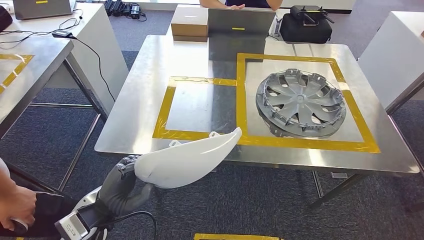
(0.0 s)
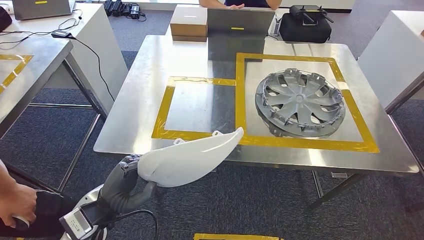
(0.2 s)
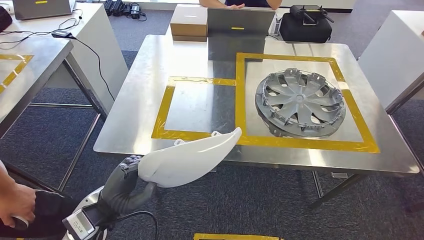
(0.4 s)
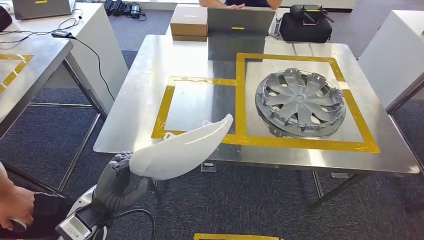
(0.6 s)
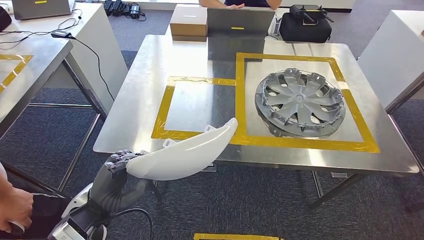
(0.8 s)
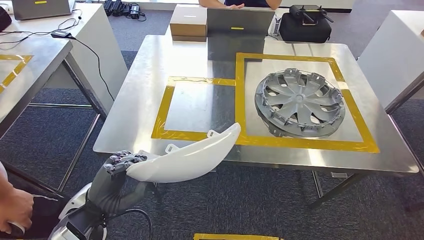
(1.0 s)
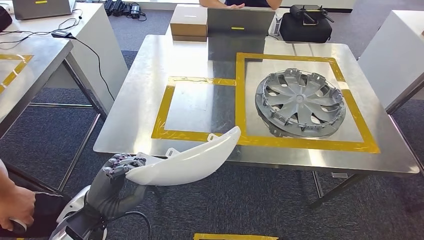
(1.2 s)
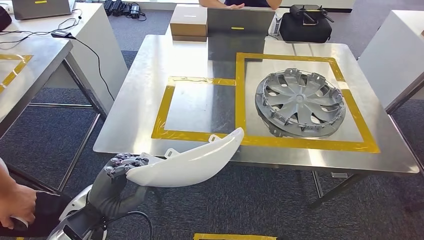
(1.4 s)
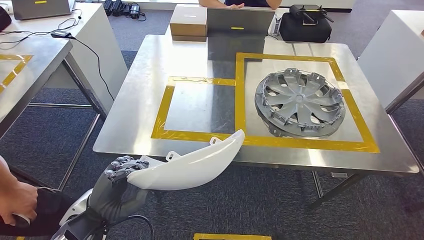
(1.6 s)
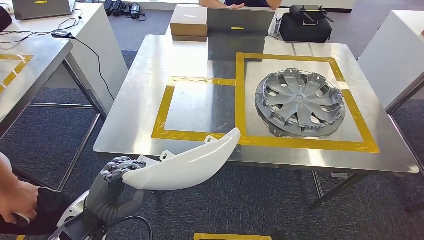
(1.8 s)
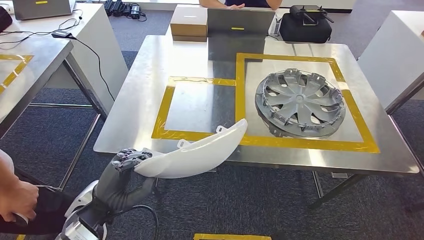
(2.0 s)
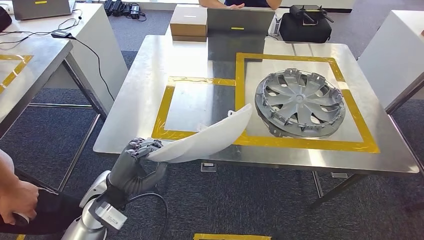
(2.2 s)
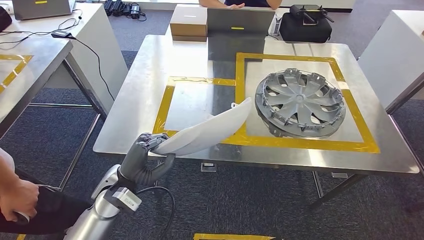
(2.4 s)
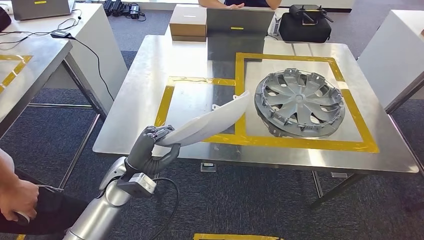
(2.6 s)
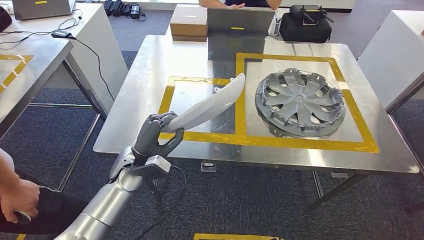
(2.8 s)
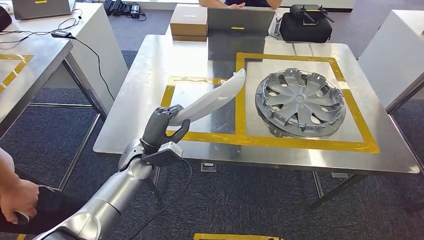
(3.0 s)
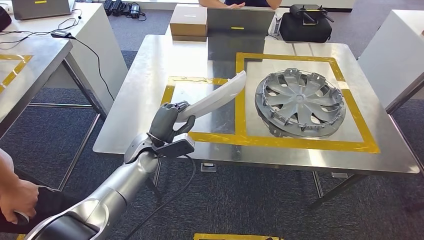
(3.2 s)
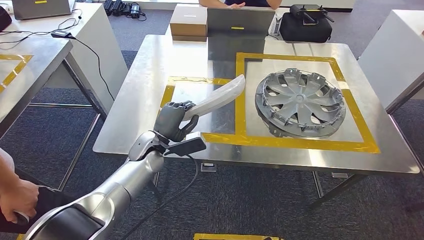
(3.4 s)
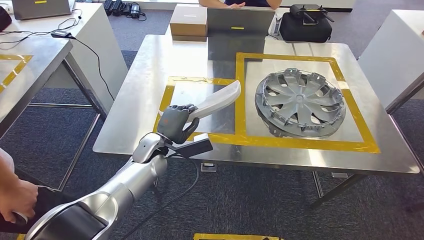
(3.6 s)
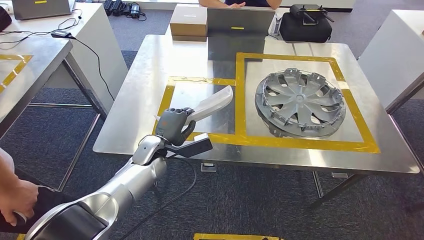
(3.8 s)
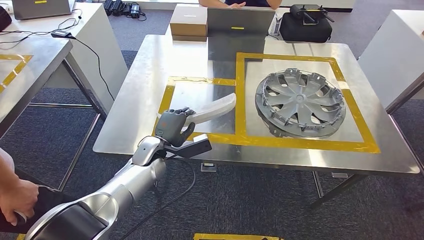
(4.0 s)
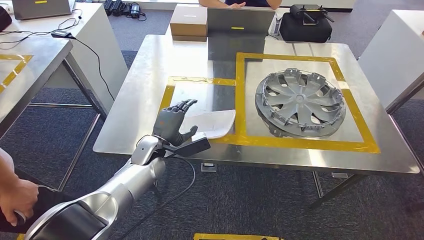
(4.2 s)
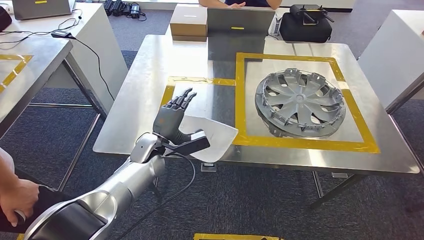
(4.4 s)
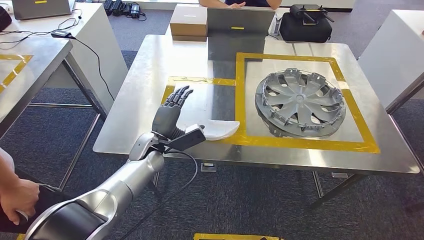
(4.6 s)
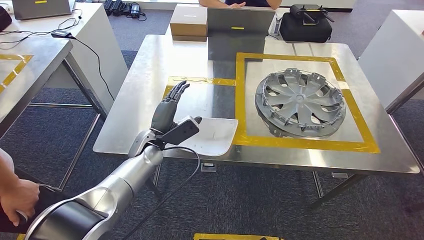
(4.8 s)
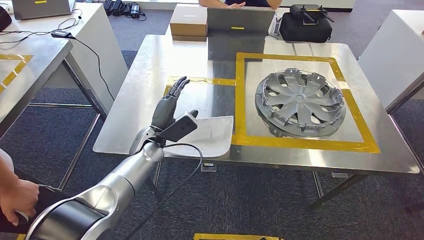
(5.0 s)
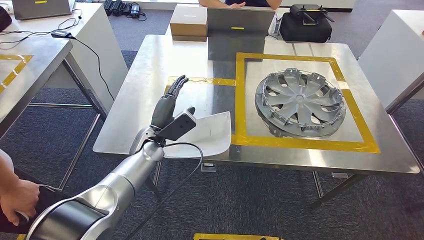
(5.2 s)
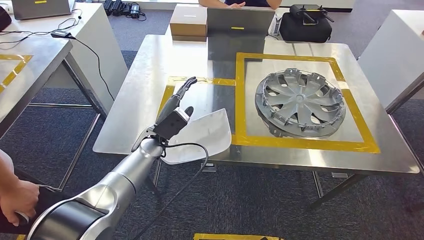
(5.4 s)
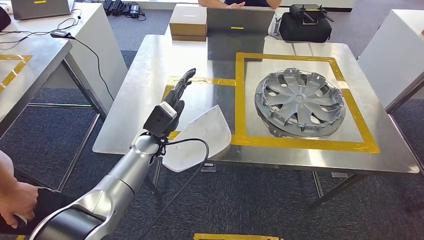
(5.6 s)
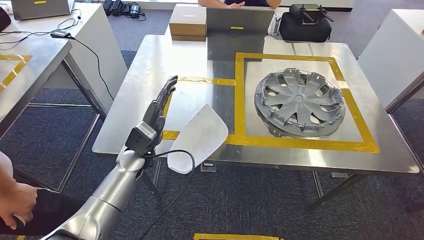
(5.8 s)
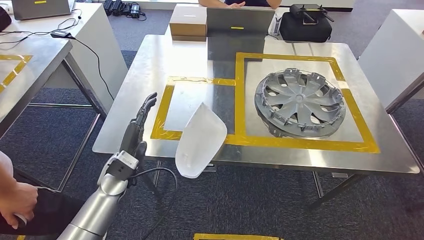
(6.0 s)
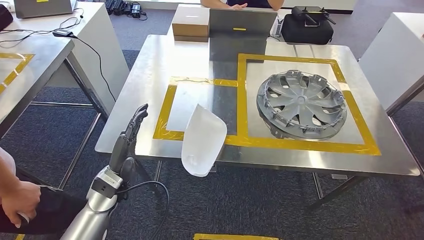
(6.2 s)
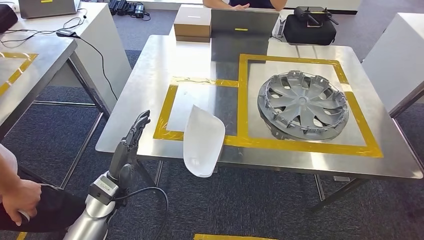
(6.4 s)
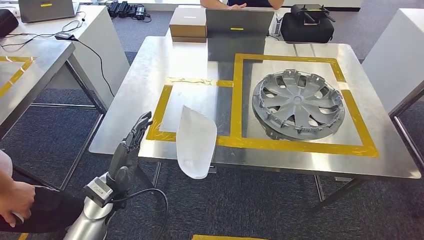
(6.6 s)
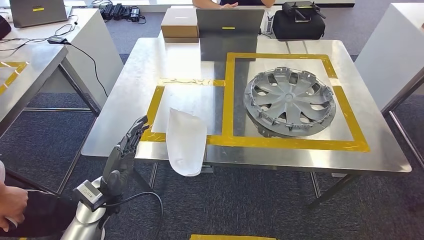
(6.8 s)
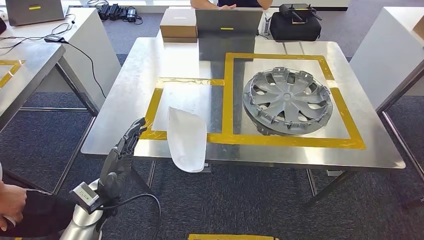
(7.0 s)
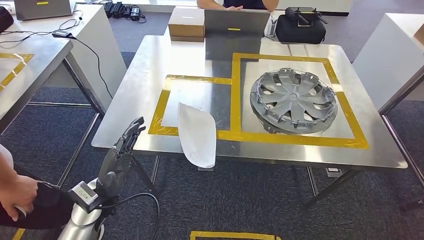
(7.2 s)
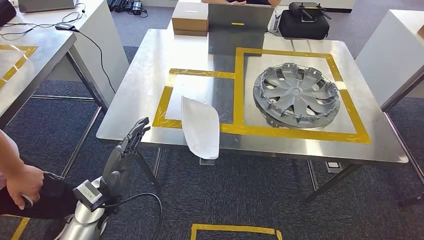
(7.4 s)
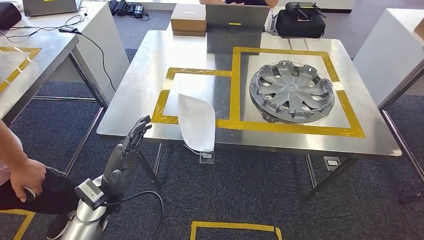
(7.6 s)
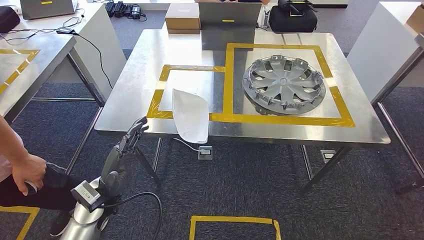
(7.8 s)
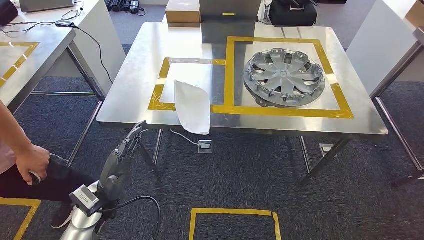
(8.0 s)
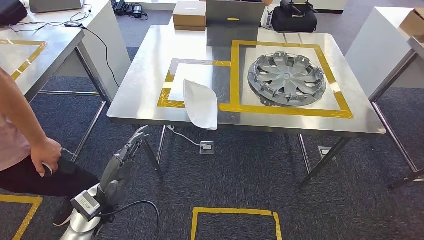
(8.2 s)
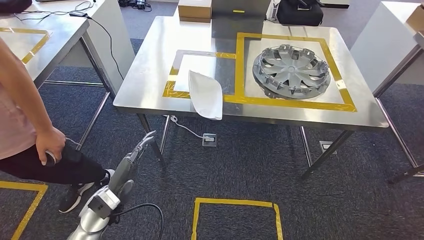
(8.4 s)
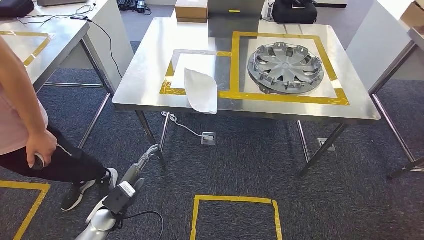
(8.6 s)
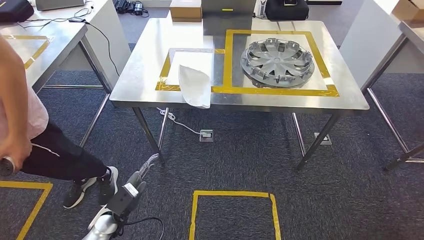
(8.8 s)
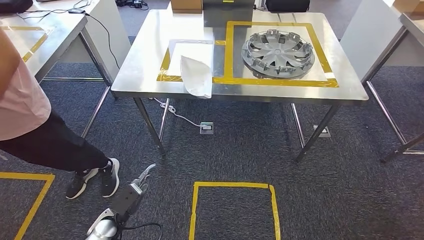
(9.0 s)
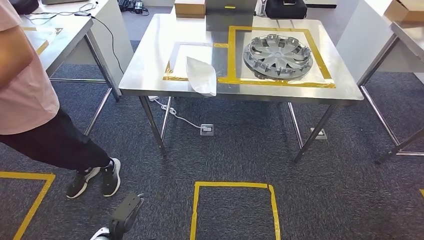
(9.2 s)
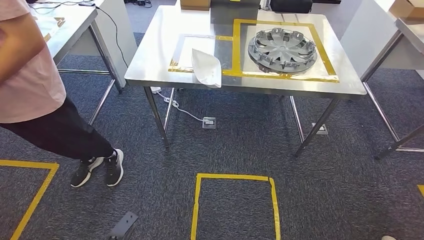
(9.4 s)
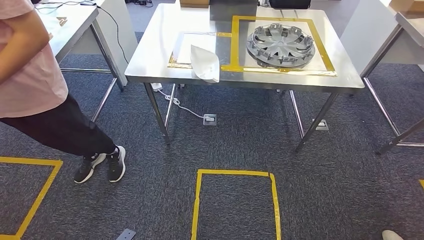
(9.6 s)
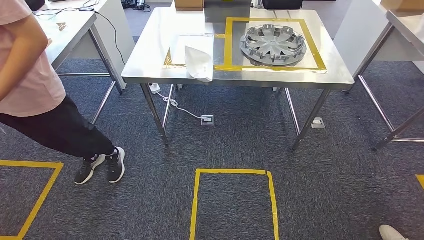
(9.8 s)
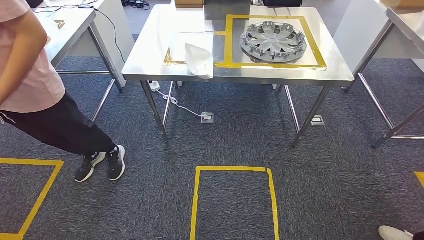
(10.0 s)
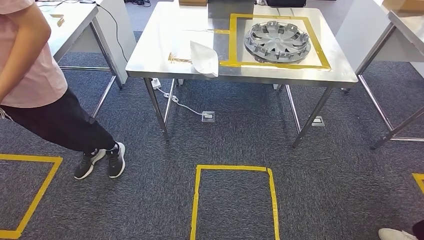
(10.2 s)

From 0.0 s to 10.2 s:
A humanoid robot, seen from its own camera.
Step, from 0.0 s to 6.2 s: Insert the small component into the corresponding slot on the workbench.
Step, from 6.4 s to 10.2 s: Return to the initial position at the workbench.
From 0.0 s to 1.4 s: The hands move only a little.
From 1.4 s to 3.0 s: The left hand travels forward and to the right by some 15 cm.

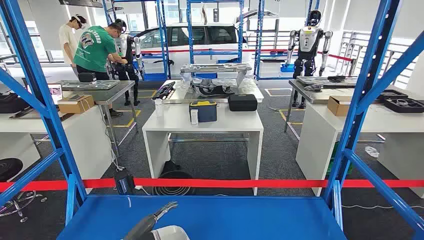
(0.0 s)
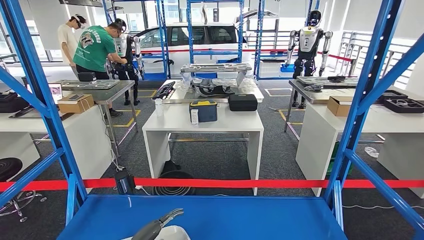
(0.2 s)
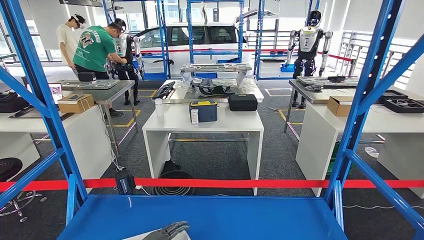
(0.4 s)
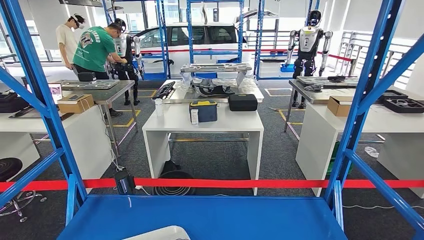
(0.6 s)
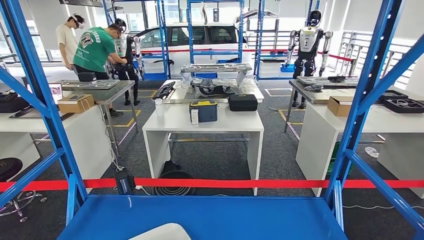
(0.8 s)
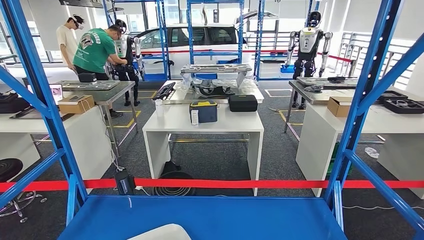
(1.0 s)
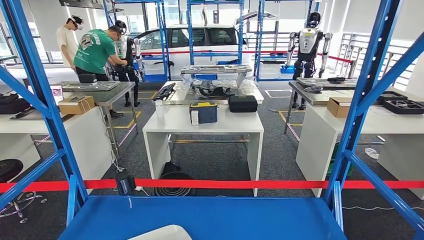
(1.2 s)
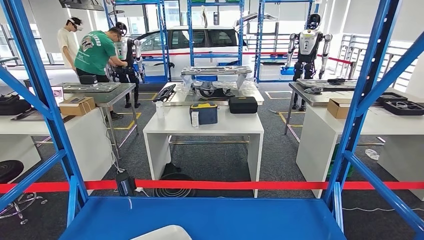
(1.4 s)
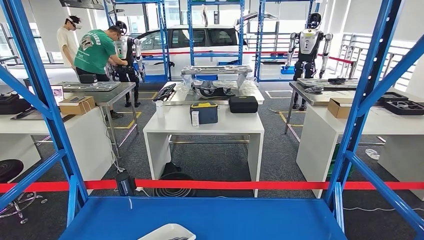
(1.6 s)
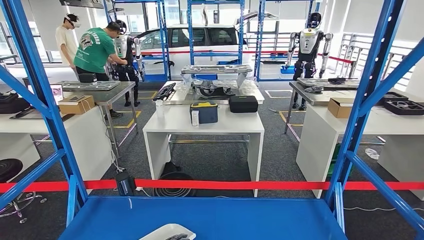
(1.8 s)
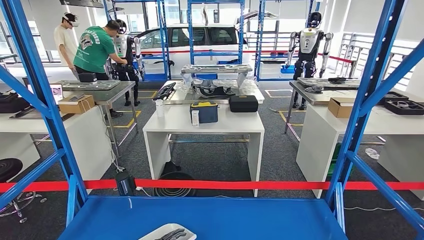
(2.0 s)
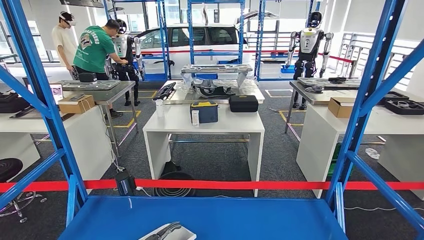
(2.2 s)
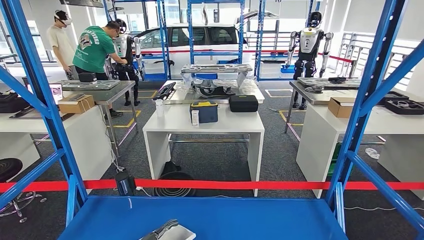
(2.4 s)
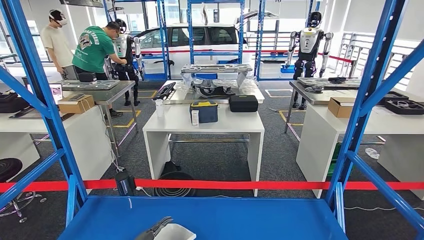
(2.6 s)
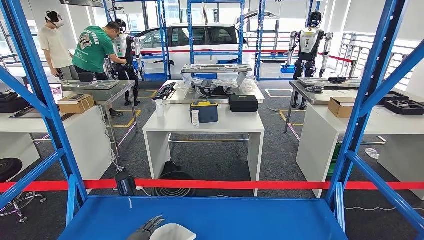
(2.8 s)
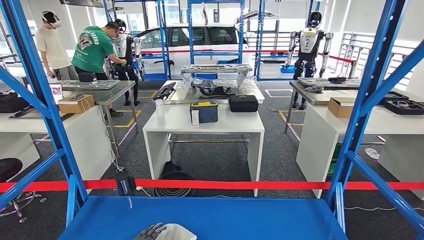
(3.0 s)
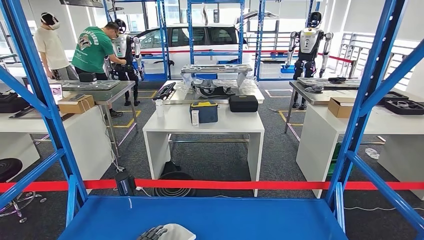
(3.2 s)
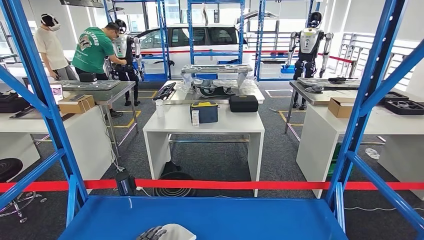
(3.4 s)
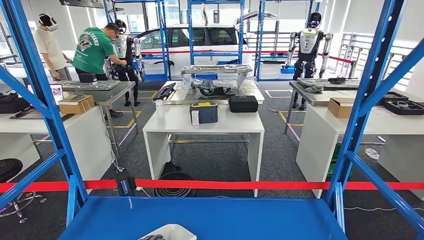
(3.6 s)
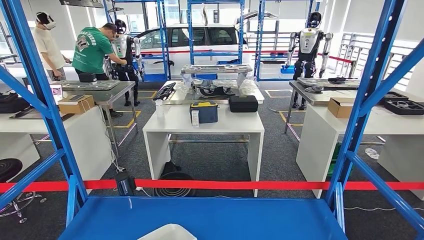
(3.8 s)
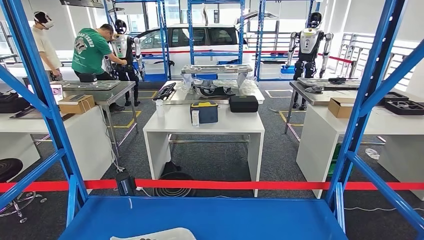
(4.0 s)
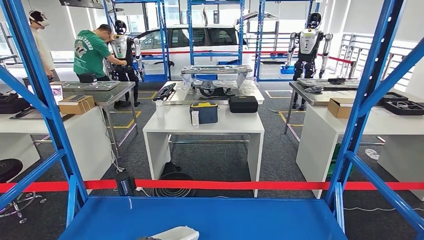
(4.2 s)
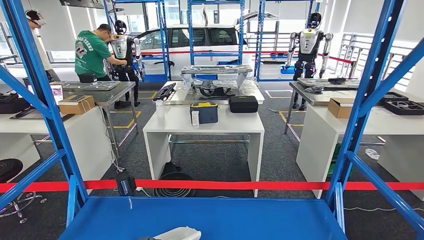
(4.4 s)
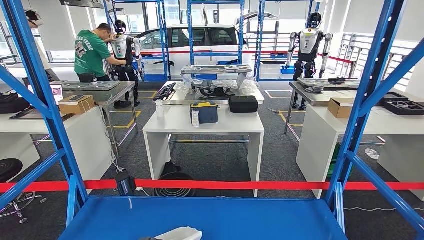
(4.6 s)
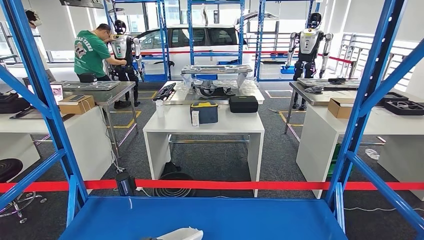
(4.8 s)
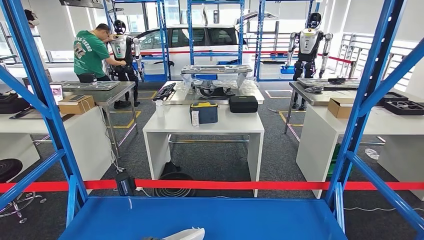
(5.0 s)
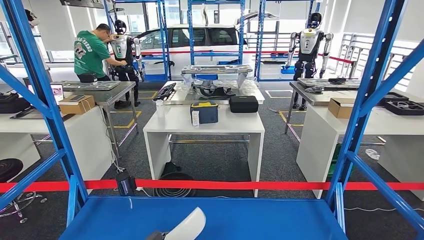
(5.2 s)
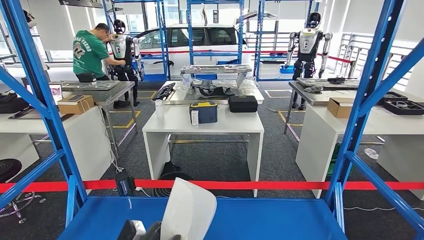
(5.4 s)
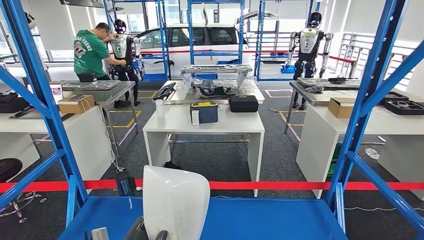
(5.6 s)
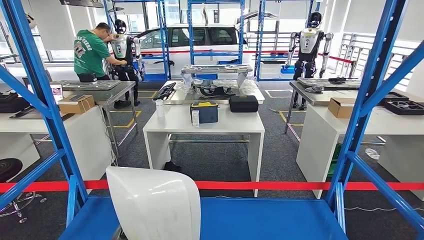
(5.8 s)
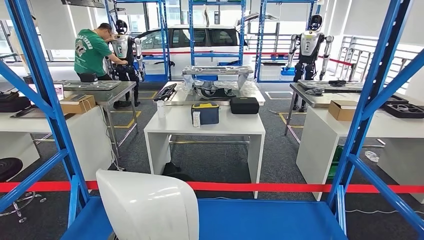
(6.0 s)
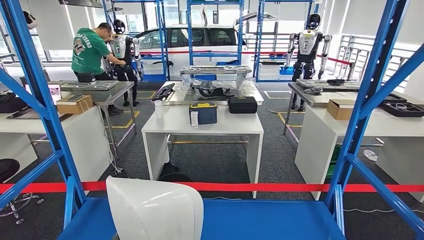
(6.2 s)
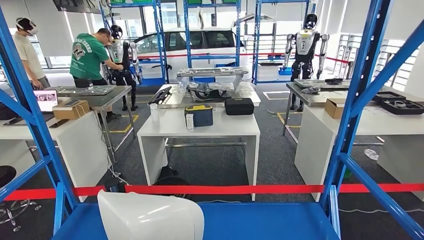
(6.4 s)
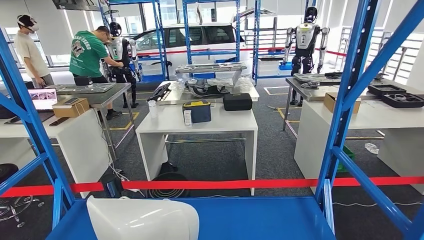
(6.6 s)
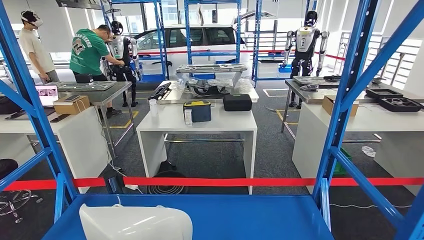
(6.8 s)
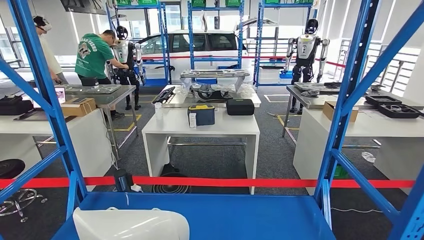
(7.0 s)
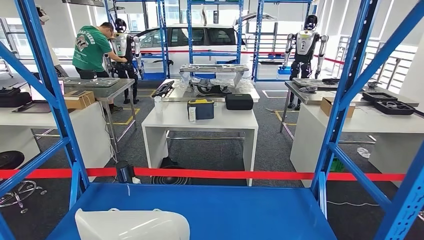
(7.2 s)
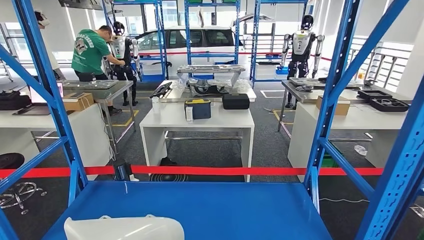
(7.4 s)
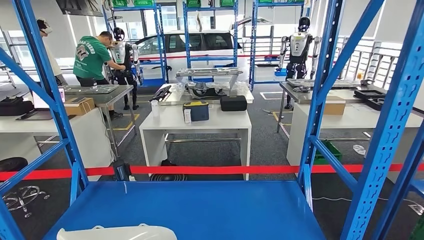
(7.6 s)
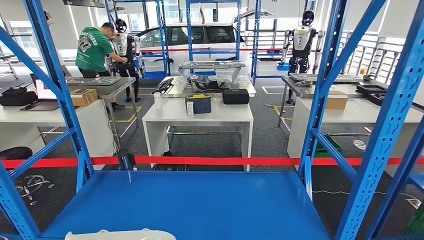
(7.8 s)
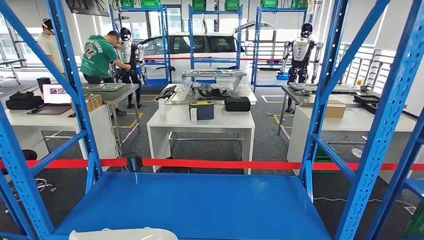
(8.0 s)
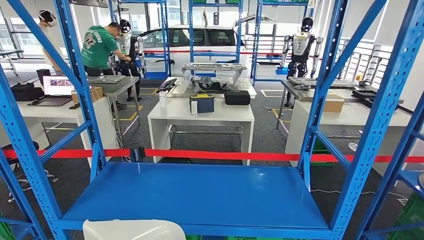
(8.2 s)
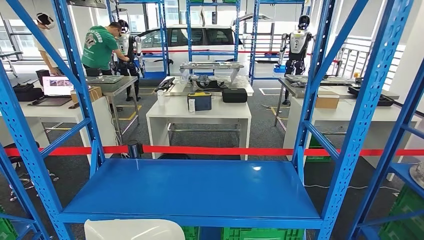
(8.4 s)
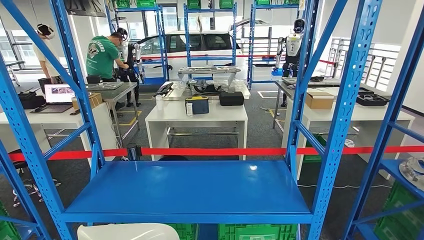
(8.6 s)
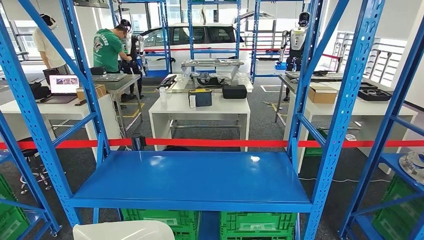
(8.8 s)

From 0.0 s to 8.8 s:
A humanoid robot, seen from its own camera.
Step, from 0.0 s to 7.0 s: Pick up the small component from the shelf.
From 3.0 s to 4.4 s: The hands stay close to where they were, moving slightly.
From 4.4 s to 5.8 s: The left hand is displaced upward, backward and to the right by some 15 cm.
